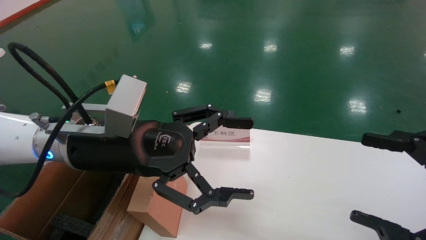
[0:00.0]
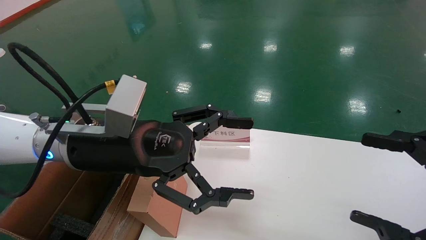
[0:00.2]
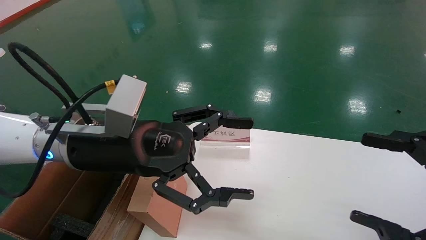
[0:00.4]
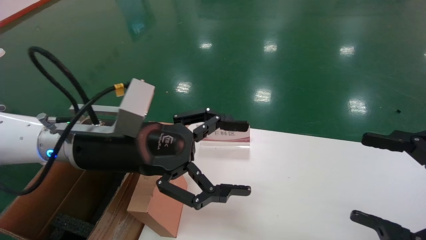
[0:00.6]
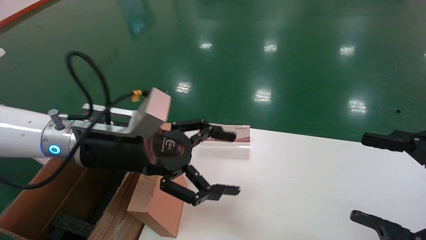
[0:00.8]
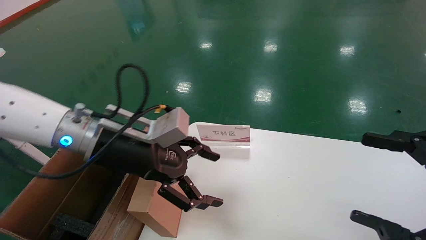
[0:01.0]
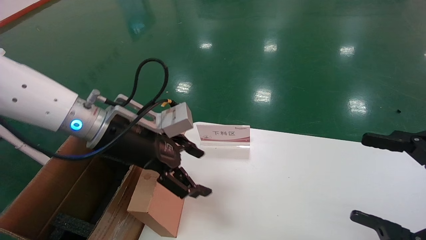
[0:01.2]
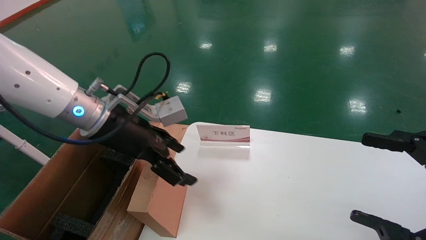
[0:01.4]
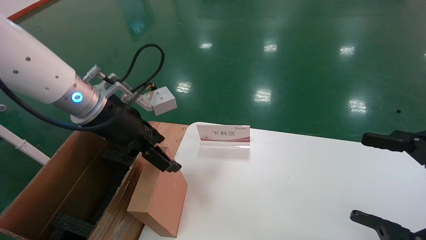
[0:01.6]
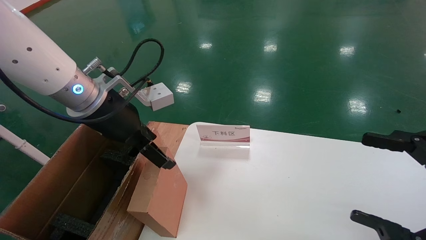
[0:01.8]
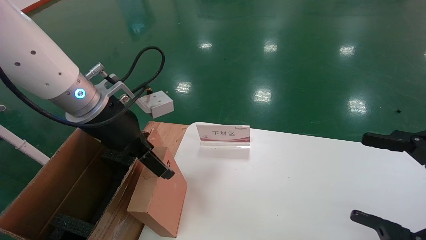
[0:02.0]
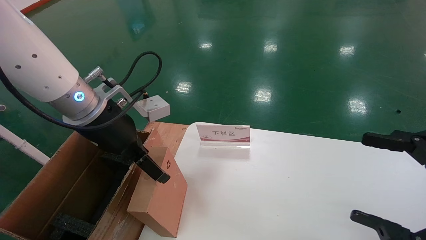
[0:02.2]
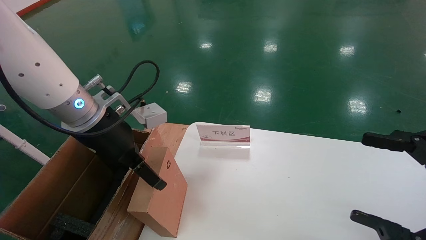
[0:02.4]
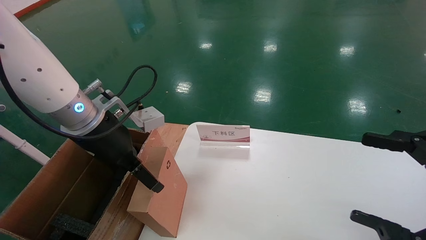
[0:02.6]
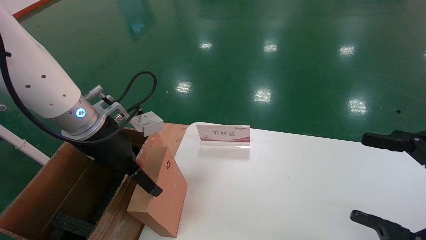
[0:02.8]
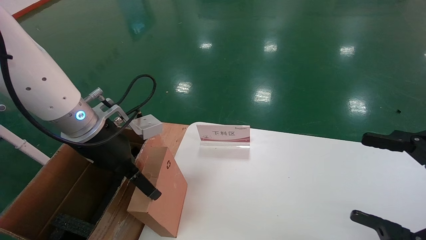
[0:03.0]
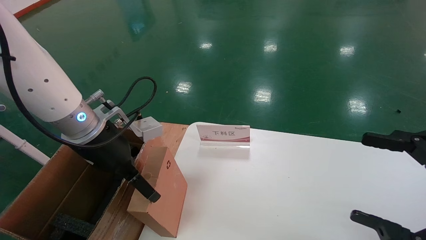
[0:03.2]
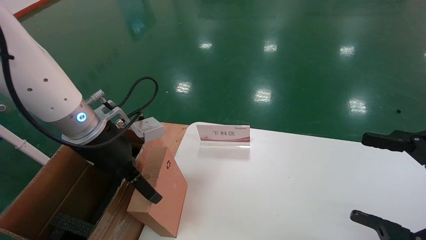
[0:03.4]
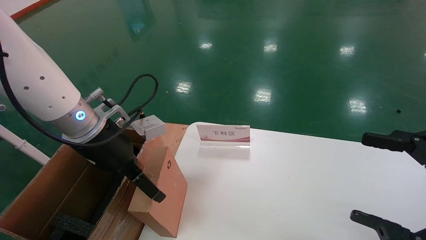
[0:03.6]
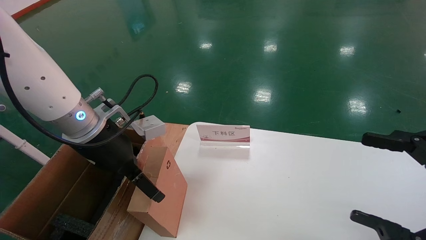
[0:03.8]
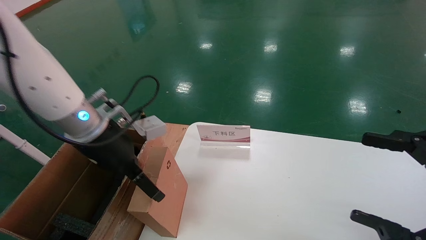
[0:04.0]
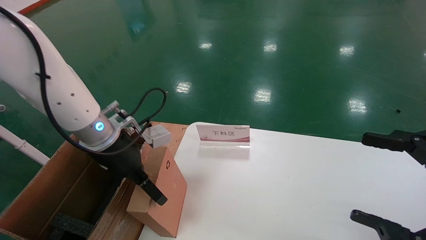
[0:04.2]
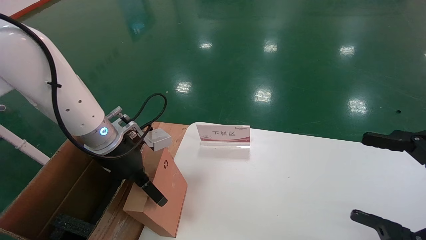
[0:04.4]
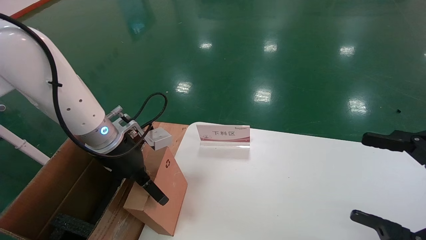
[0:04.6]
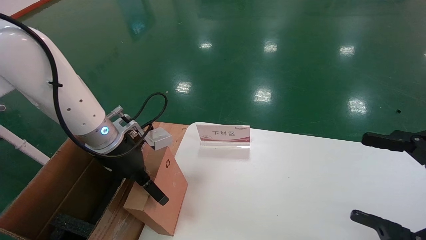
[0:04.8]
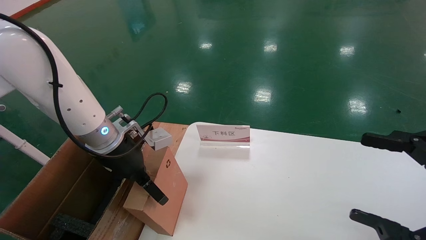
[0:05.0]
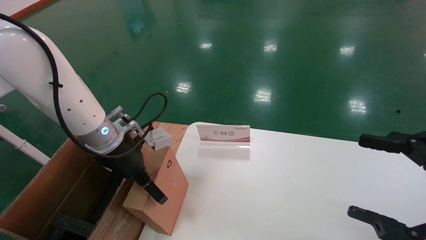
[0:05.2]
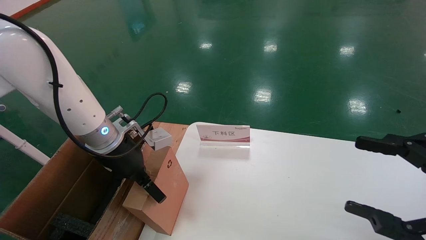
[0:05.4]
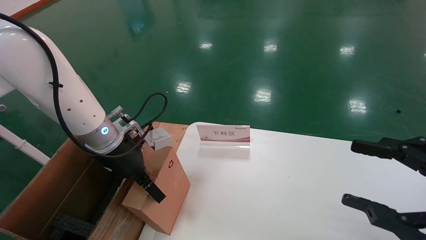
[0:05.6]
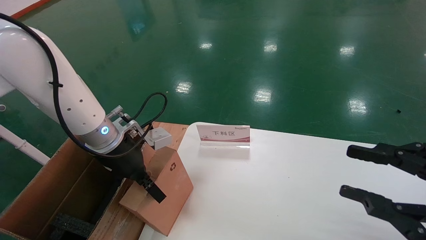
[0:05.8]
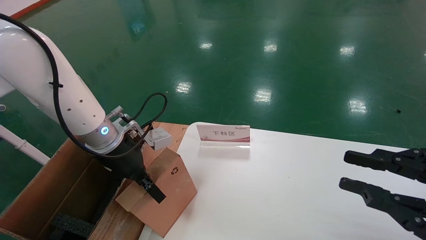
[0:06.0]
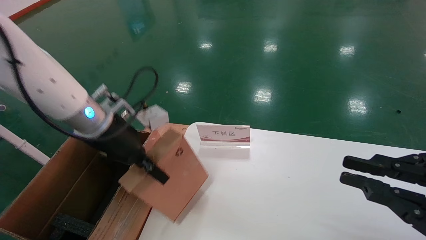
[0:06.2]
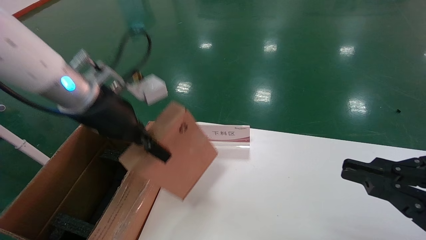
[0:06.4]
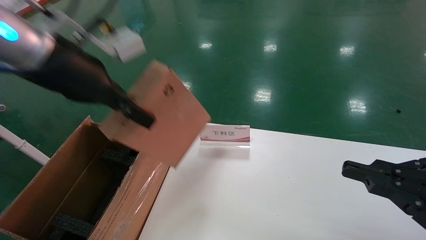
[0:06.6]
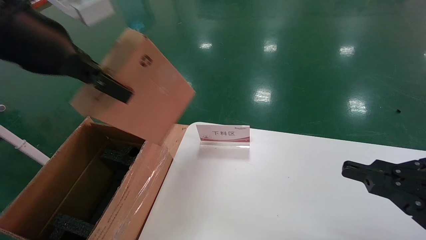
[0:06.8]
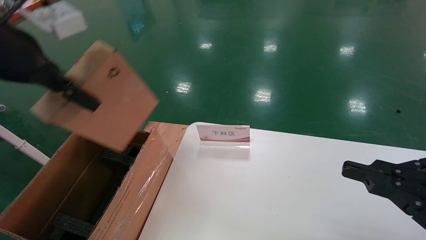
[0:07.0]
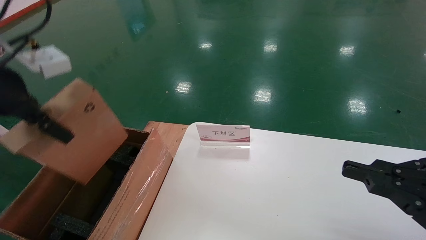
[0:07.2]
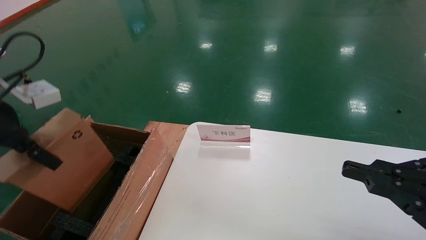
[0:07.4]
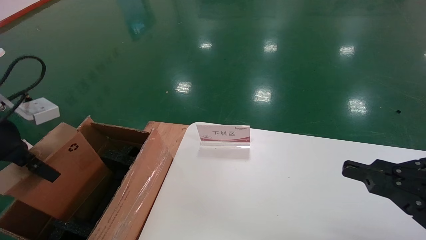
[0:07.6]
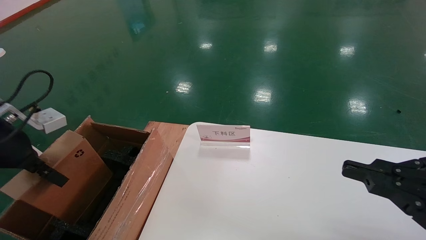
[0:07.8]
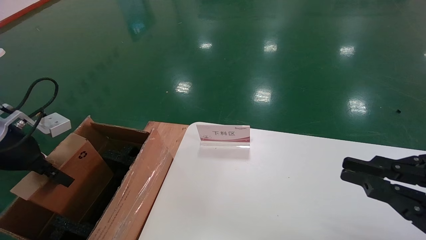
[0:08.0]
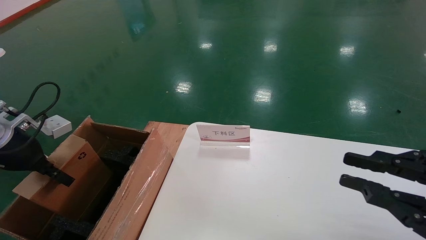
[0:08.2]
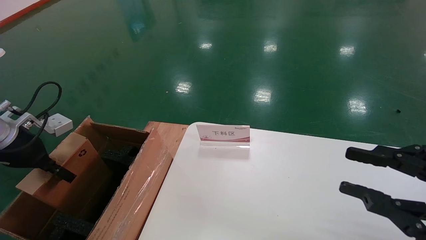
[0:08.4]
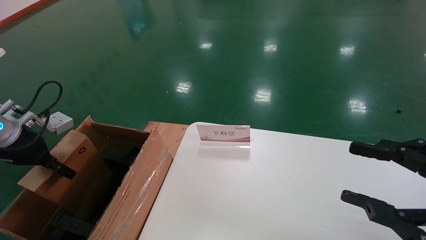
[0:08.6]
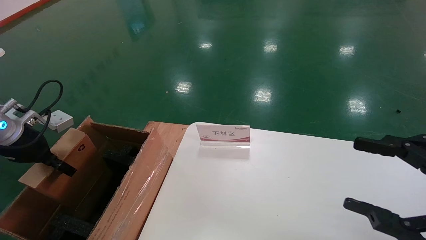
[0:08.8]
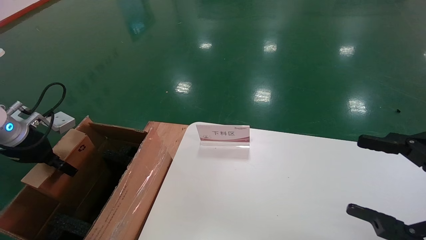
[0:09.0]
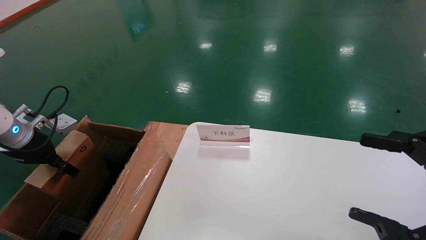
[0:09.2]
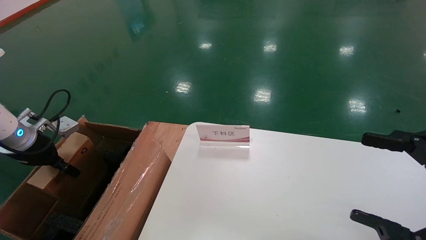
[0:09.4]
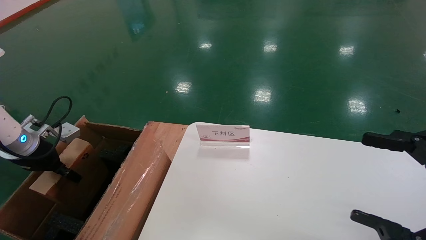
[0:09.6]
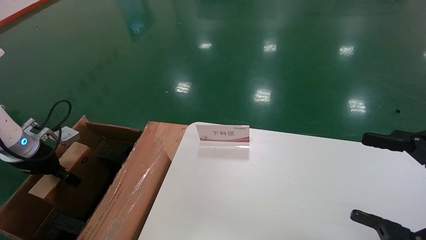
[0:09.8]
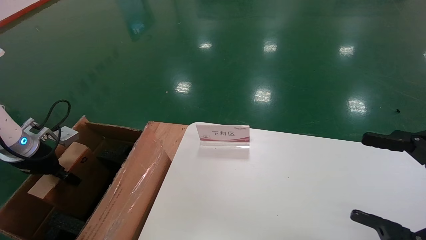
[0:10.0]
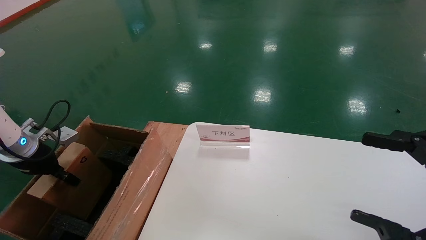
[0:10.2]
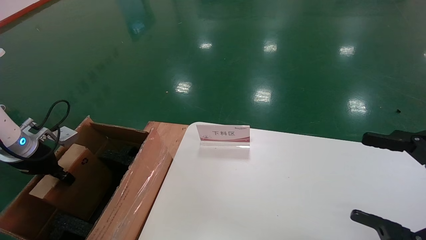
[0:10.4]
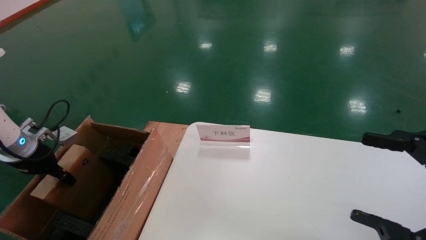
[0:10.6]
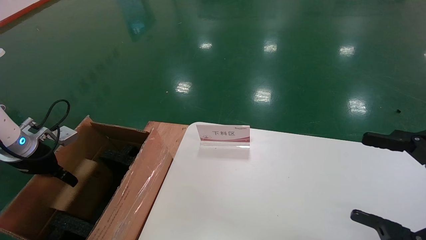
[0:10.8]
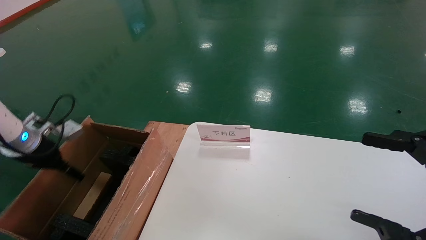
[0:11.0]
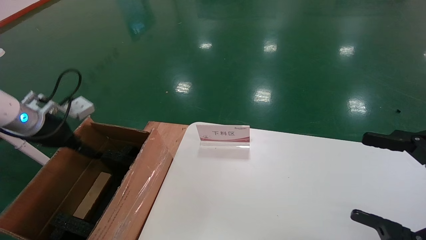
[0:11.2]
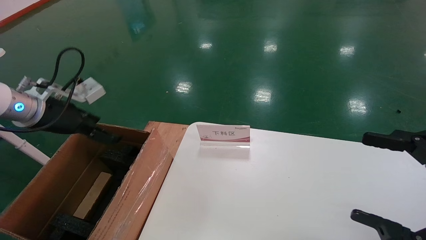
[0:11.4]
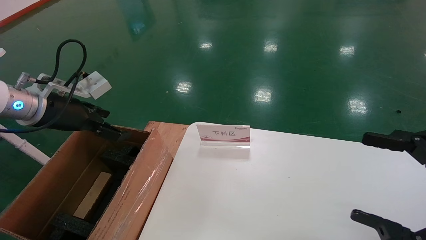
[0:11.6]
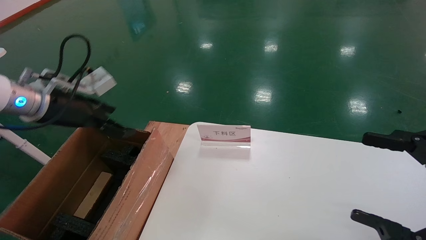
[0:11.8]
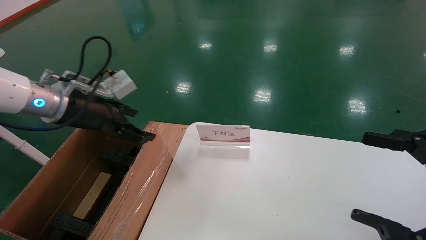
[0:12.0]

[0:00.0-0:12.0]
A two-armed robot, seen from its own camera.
Task of the whole recording: pick up the small cardboard box and load it into the large cardboard box.
Step, 0:01.2 to 0:06.4: Pick up the mouse and power cord box.
Step, 0:06.6 to 0:11.4: Place the mouse and power cord box into the case.
0:00.0 to 0:01.6: The left gripper is displaced forward by some 5 cm.
0:03.0 to 0:04.4: The left gripper ends up approximately 5 cm from where it was.
0:04.4 to 0:06.0: The left gripper closes its fingers, while the right gripper closes up.
0:06.0 to 0:07.6: The left gripper is displaced to the left, backward and upward by roughly 20 cm. The right gripper closes its fingers.
0:07.6 to 0:09.0: The left gripper travels downward, forward and to the left by about 15 cm. The right gripper opens.
0:09.0 to 0:10.4: The left gripper changes place by roughly 5 cm.
0:10.4 to 0:12.0: The left gripper moves to the right and upward, roughly 20 cm, and opens.

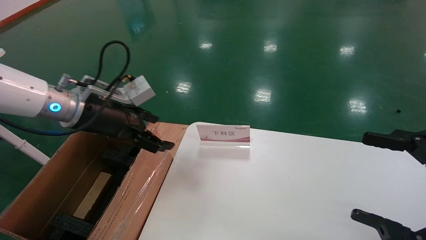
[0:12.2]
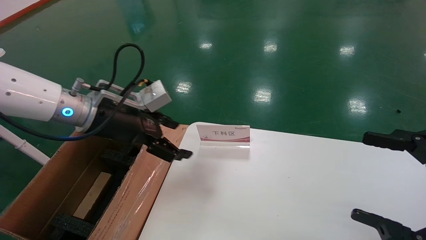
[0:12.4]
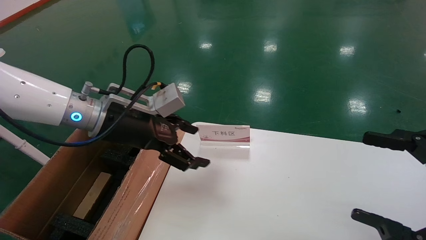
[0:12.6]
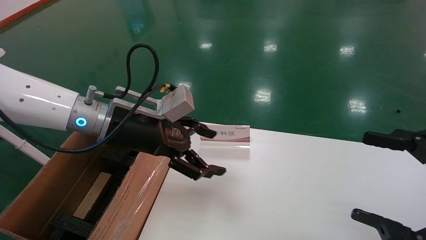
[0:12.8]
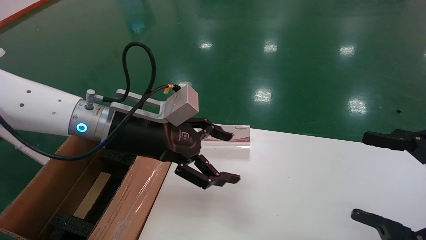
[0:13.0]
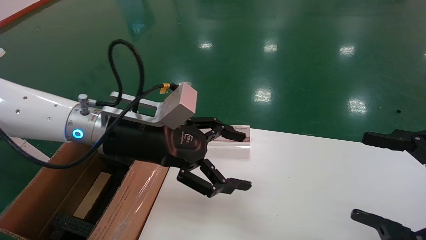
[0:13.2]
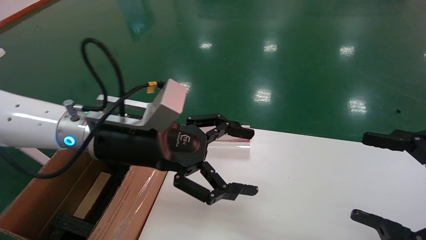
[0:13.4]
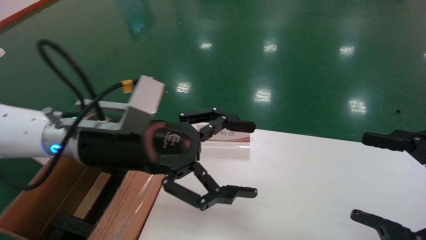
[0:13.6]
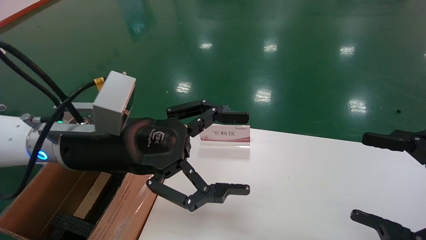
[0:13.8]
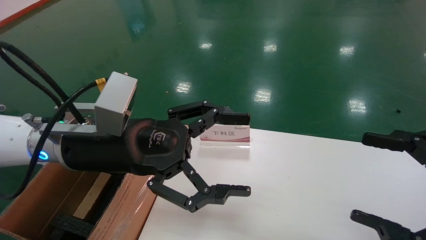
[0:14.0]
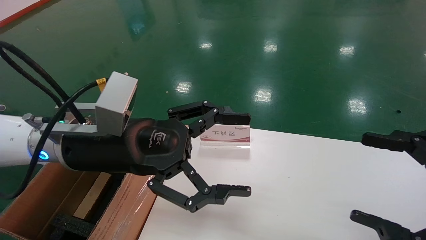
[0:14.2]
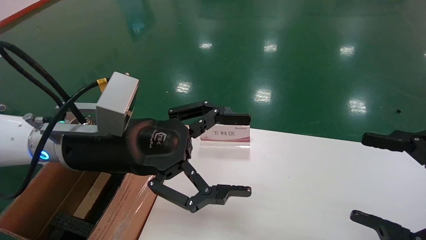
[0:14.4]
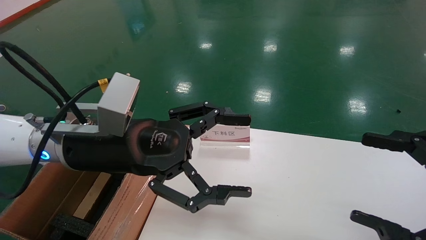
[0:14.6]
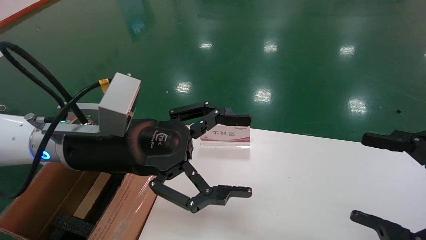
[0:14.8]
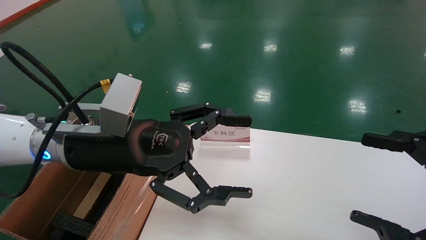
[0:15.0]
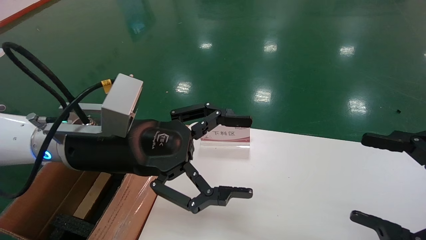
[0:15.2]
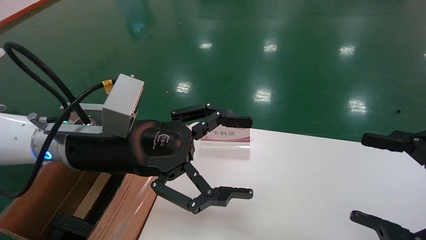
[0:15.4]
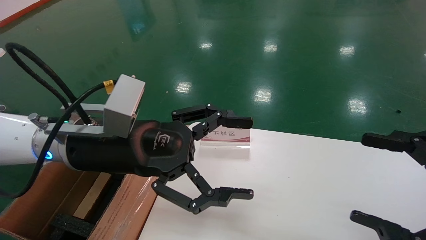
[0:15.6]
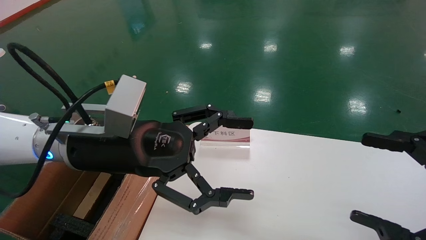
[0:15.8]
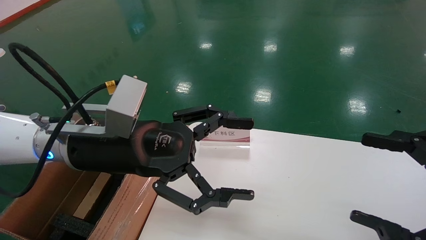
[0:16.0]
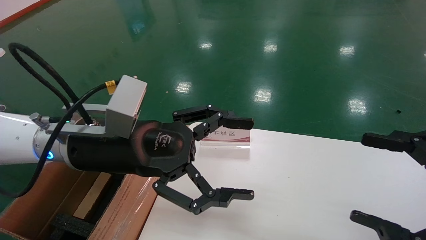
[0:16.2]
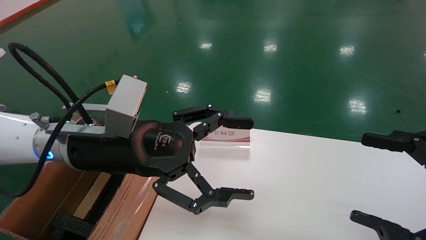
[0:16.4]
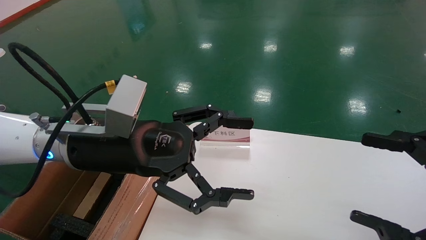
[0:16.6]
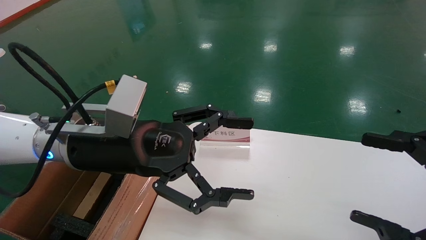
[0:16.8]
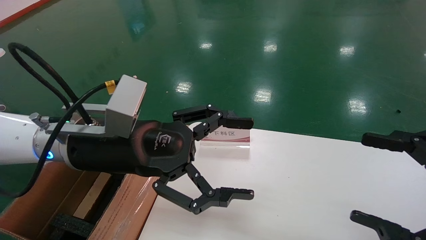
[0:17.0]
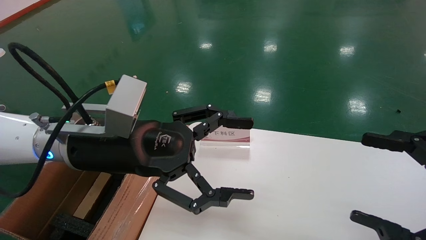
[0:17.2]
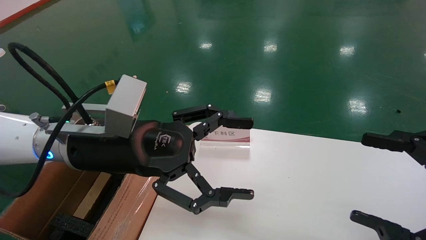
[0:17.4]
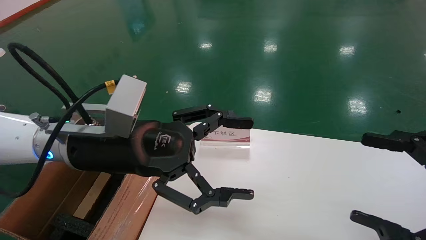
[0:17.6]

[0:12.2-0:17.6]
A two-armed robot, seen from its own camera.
Task of the whole recording: pick up the small cardboard box and load it into the large cardboard box.
0:12.2 to 0:13.6: The left gripper moves to the right and backward, some 10 cm.
0:13.6 to 0:15.0: There are only small adjustments of the grippers.
0:15.0 to 0:17.6: Both grippers stay put.
